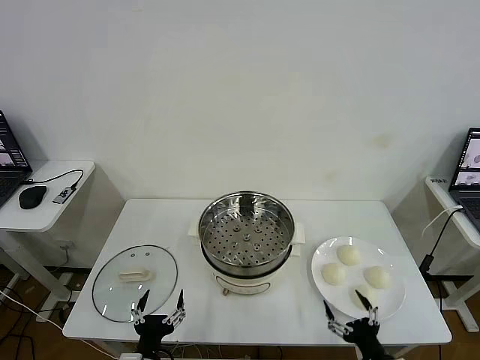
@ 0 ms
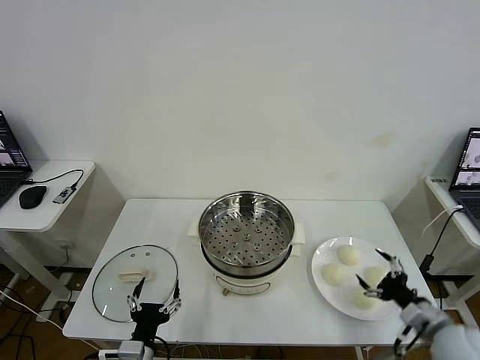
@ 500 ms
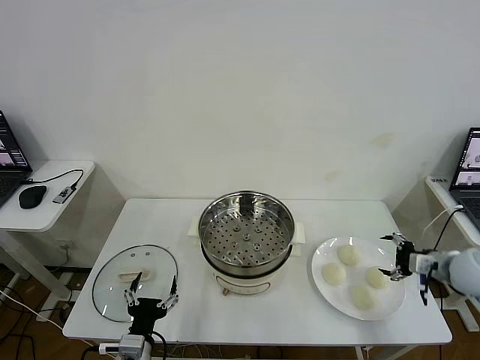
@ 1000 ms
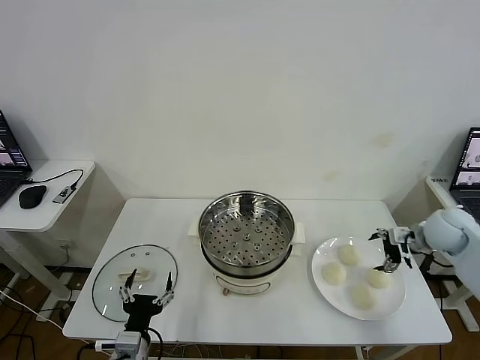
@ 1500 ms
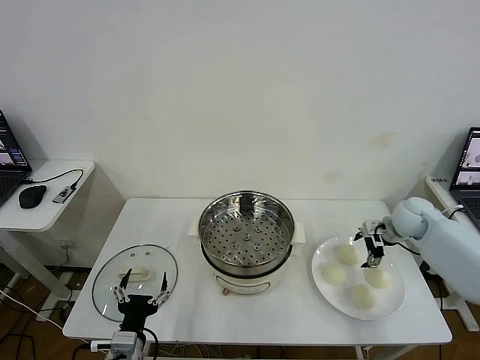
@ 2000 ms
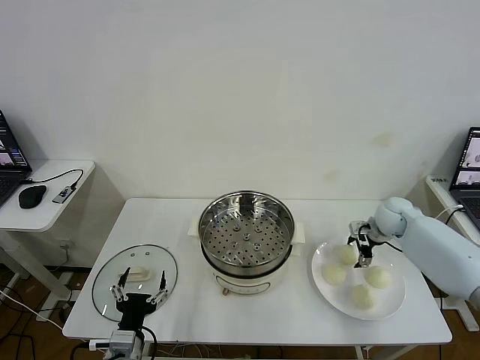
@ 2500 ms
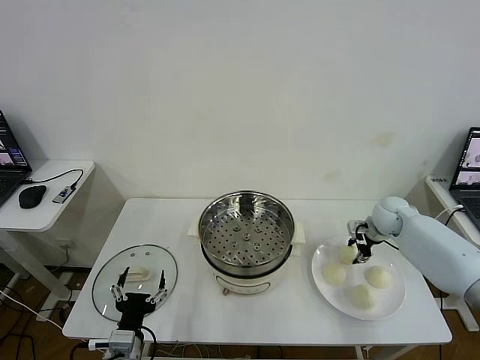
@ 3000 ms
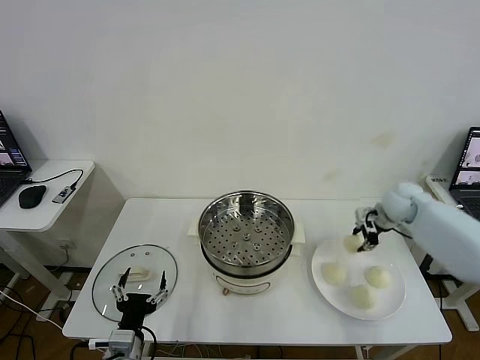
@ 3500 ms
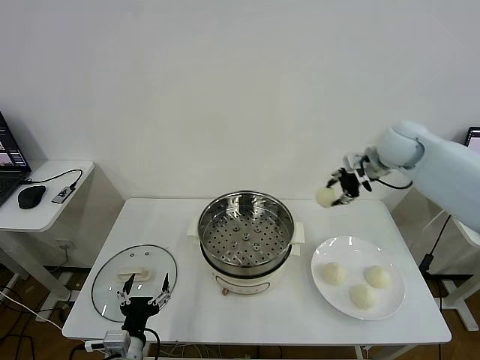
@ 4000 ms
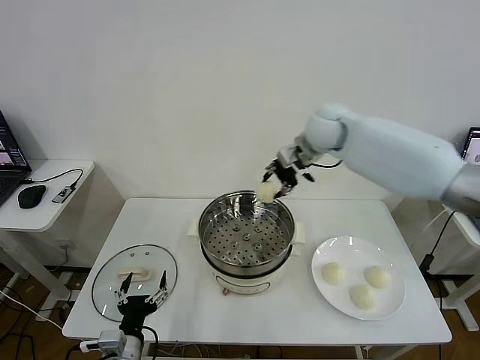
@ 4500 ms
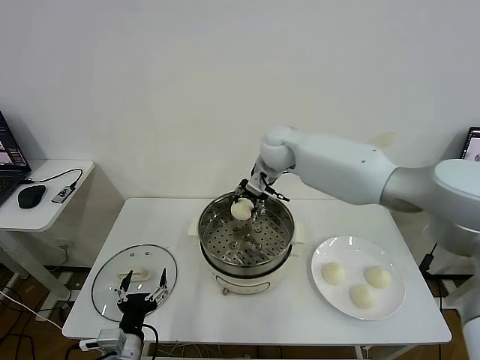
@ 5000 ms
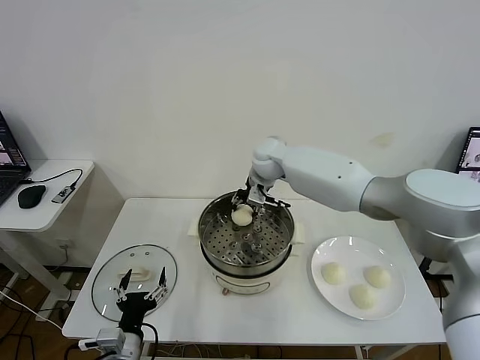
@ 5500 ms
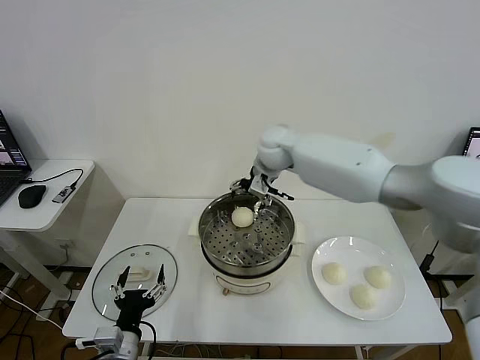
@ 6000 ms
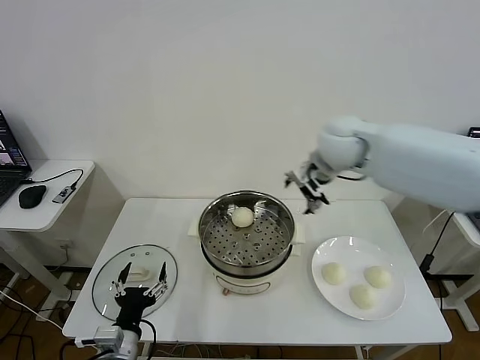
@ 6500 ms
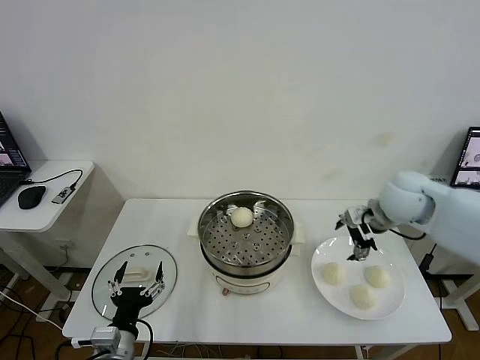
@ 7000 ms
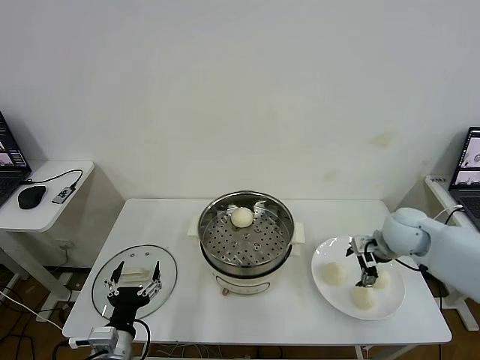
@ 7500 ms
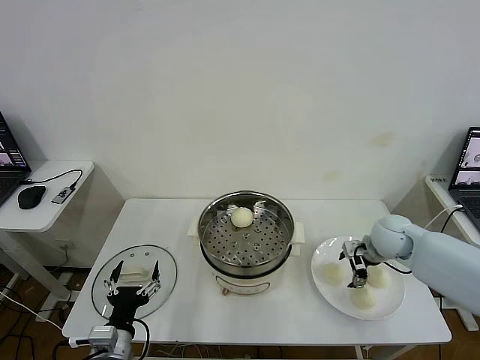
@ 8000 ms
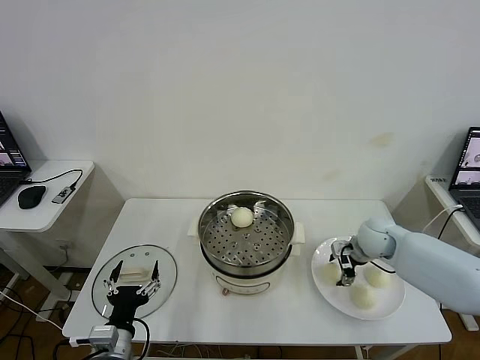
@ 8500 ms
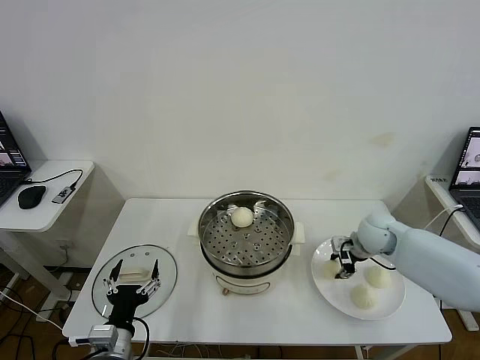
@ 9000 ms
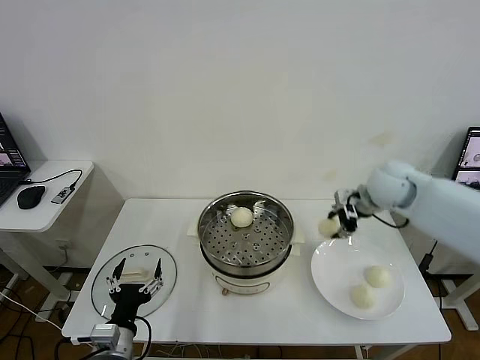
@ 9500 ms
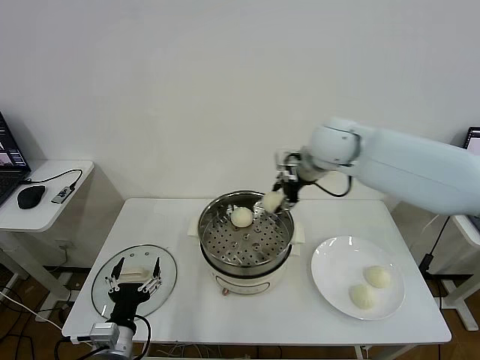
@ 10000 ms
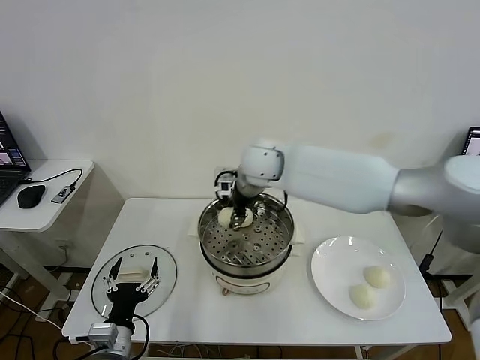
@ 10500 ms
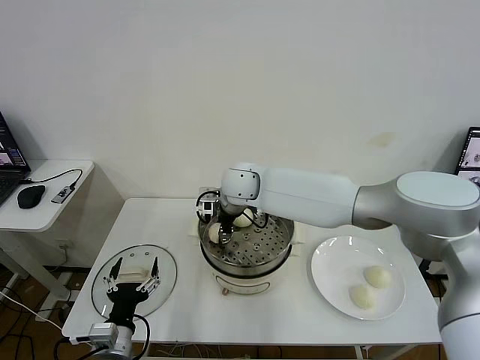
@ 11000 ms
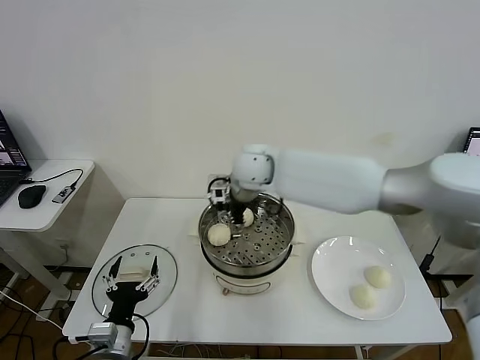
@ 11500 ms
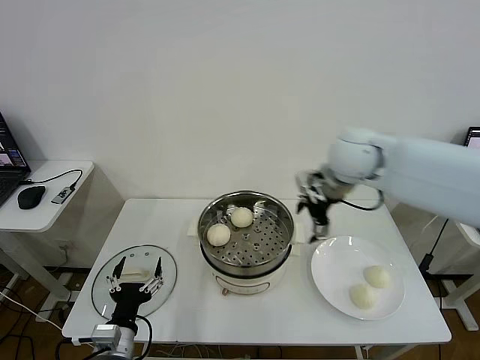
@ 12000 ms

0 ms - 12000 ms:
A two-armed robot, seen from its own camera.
Task of the whole recording: take steamed baozi put them in steamer then cover it.
Step, 0 ms - 3000 ms: Grasp the baozi in the plate with right gripper.
Step, 3500 ms - 5500 ms: Place the baozi on the steamer with right gripper.
Step, 6000 ms - 8500 ms: Grasp the baozi in the plate with right gripper.
Step, 9000 ms - 11500 ms: Place the baozi on the steamer with right gripper.
2000 ms - 4000 ms: The right gripper heads upward and to the left, covering about 25 cm, and closes its fingers.
4000 ms - 6000 ms: The right gripper is displaced to the left by some 20 cm, and opens up.
6000 ms - 8000 ms: The right gripper moves to the right, downward and backward, some 35 cm.
8000 ms - 10000 ms: The right gripper travels upward and to the left by about 30 cm, and closes up.
10000 ms - 12000 ms: The right gripper goes approximately 10 cm to the right, and opens.

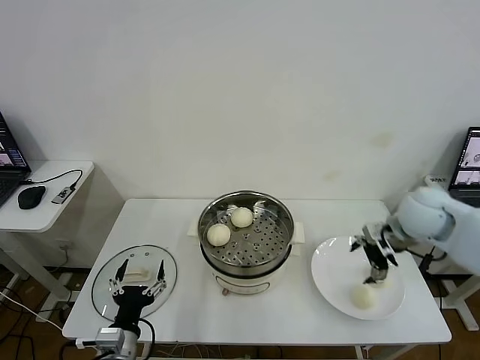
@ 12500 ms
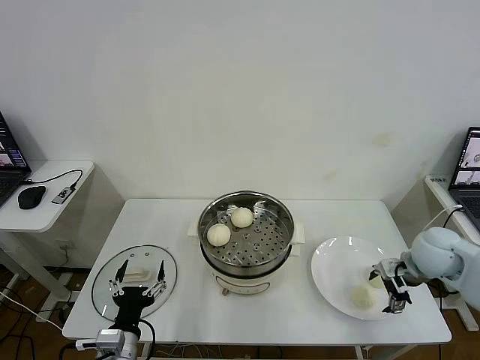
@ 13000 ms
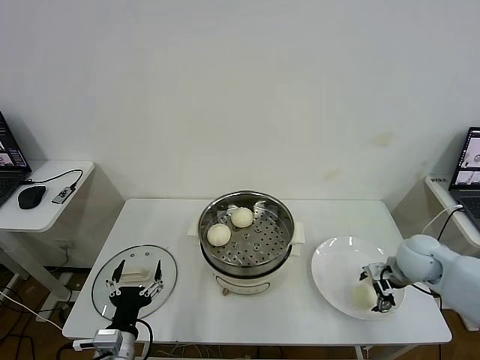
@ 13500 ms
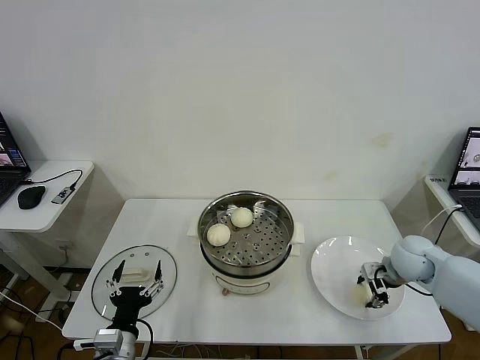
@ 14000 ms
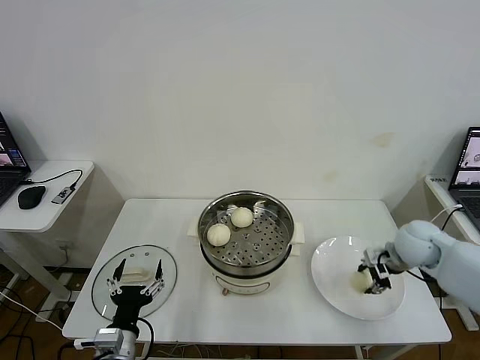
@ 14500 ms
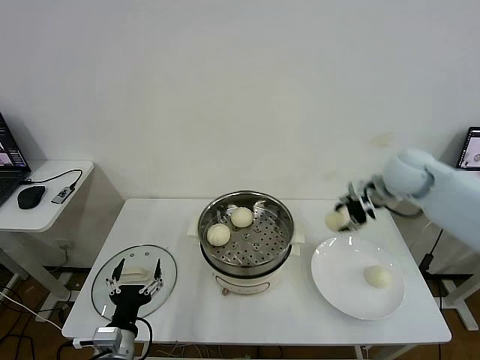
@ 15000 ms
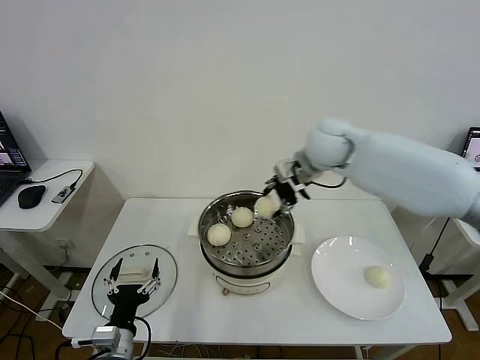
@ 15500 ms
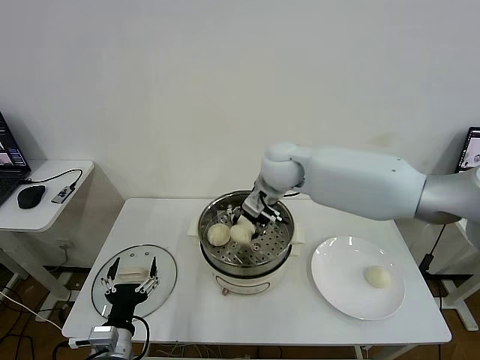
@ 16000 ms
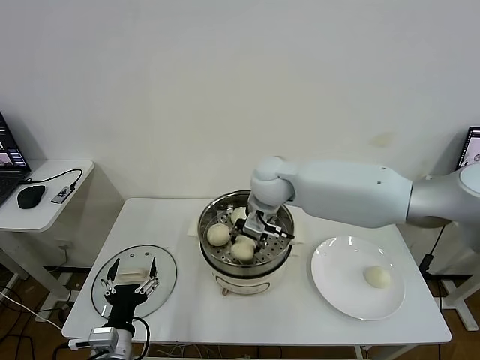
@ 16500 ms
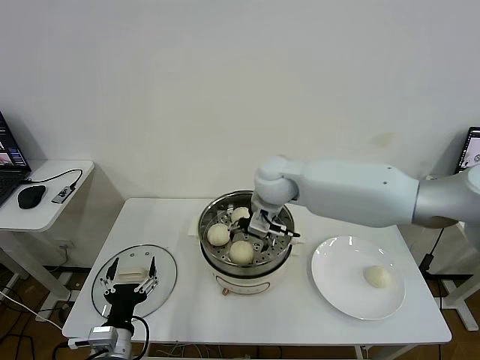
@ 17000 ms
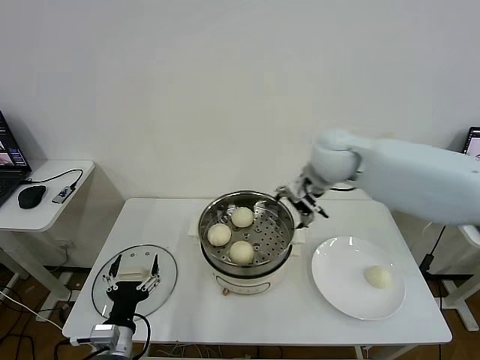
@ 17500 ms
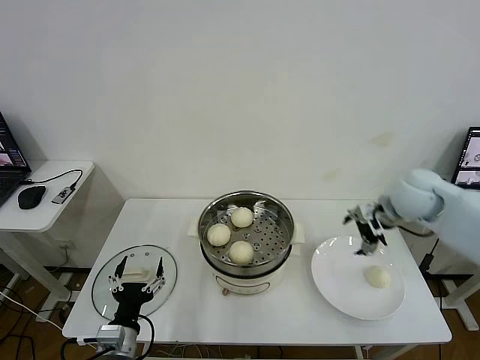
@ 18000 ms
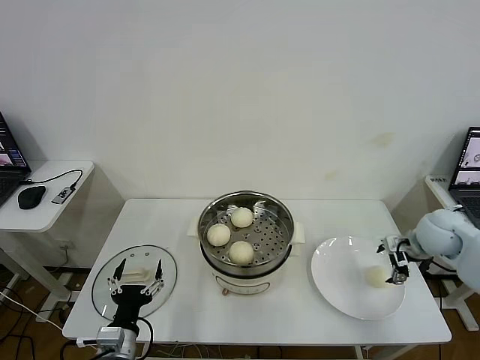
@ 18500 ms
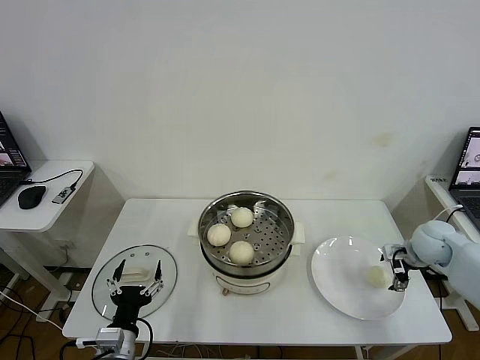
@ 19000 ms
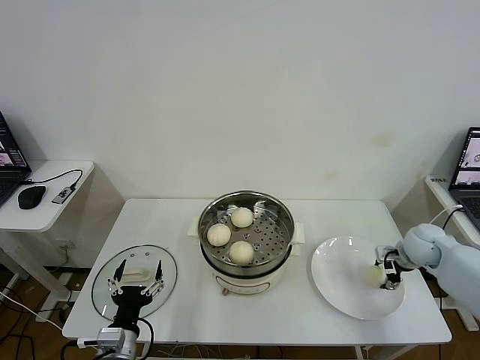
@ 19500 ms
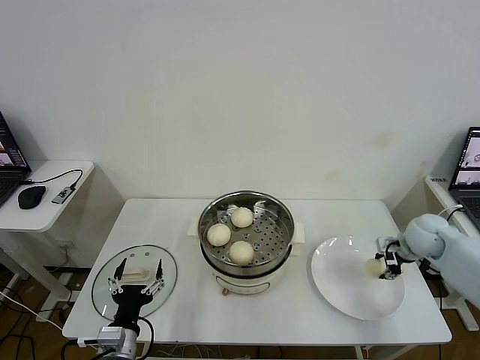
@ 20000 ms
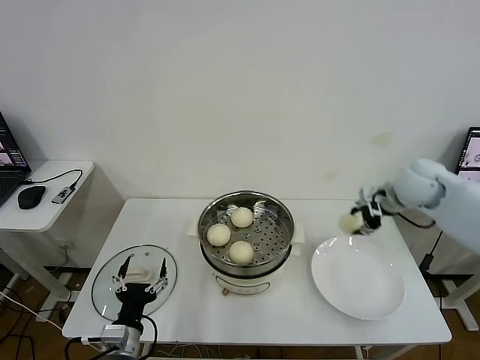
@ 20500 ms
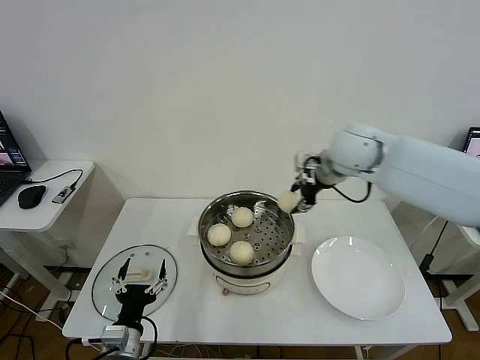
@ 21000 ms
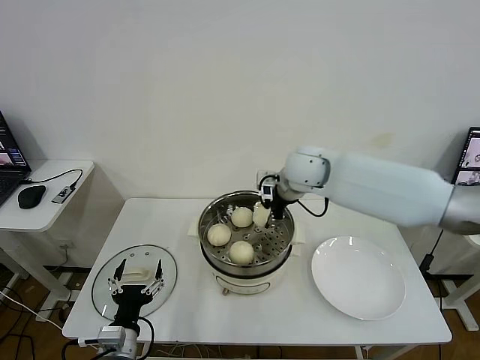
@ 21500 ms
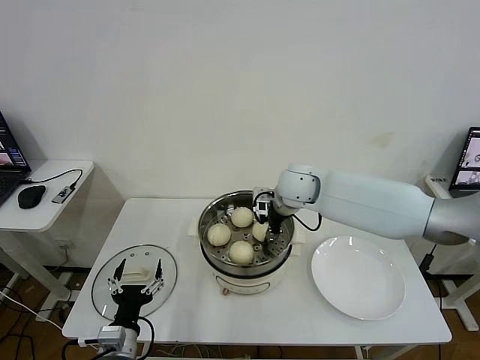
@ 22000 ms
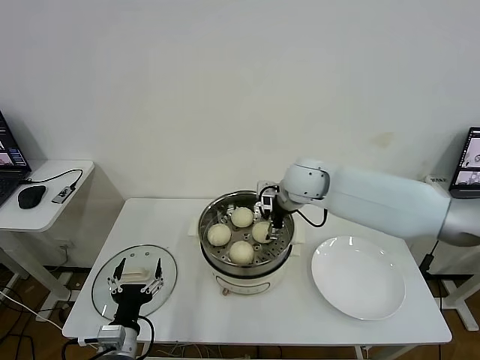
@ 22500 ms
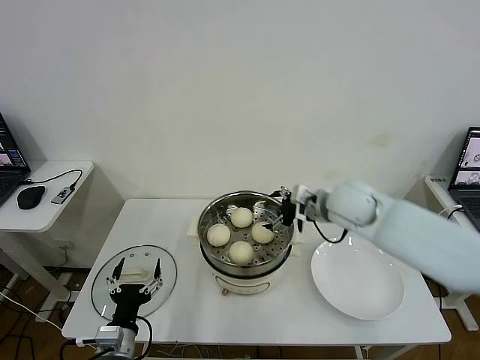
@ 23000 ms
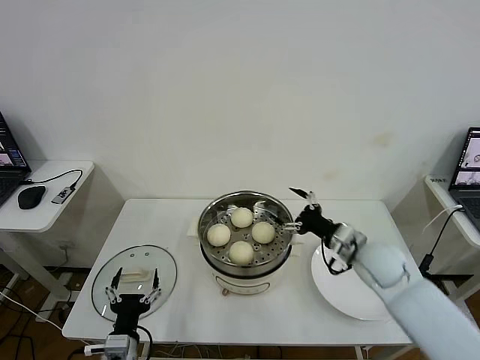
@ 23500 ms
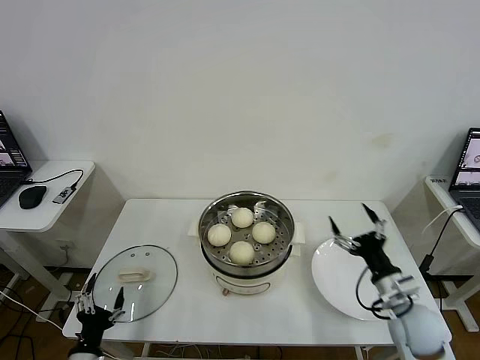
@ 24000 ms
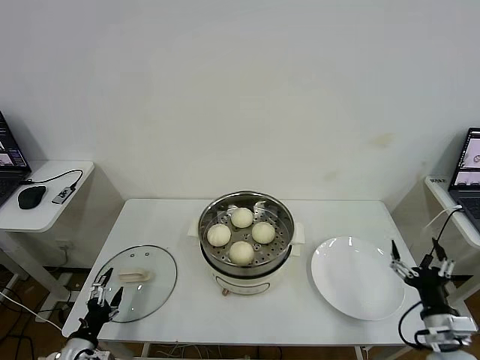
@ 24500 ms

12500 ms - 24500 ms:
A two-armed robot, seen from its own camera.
Task of the whole recording: take steamed baozi put them in steamer then cover it.
Step, 12500 ms - 14000 ms: Grasp the baozi in the plate with right gripper.
Step, 14500 ms - 17000 ms: Place the baozi on the steamer with right gripper.
Step, 17500 ms - 19500 ms: Grasp the baozi in the plate with right gripper.
Step, 20000 ms - 22500 ms: Place the baozi on the steamer with right gripper.
12500 ms - 14500 ms: The right gripper is displaced downward by roughly 5 cm, and closes.
14500 ms - 16500 ms: The right gripper moves to the left, approximately 35 cm.
16500 ms - 18500 ms: The right gripper goes about 40 cm to the right, and opens.
18500 ms - 20500 ms: The right gripper goes some 15 cm upward, to the left and forward, and closes its fingers.
20500 ms - 22500 ms: The right gripper goes some 20 cm to the left, and opens.
22500 ms - 24500 ms: The left gripper shifts approximately 15 cm to the left and downward, while the right gripper is displaced backward, to the right and downward by some 50 cm.

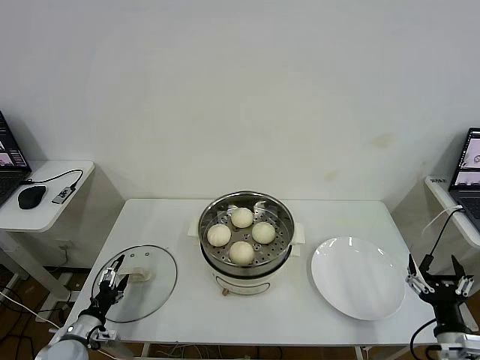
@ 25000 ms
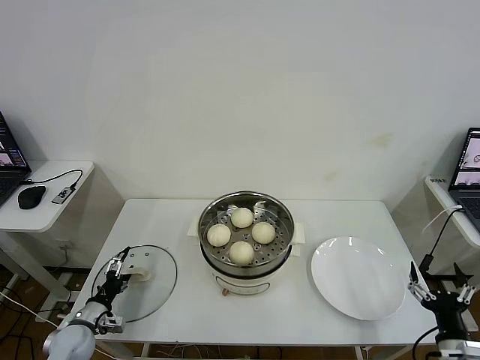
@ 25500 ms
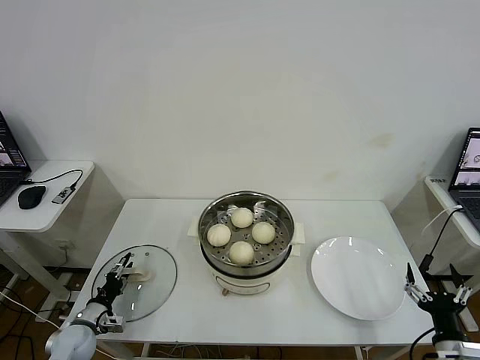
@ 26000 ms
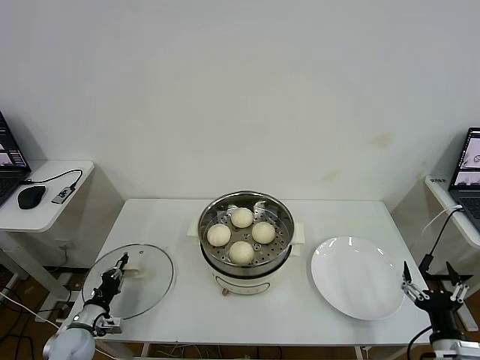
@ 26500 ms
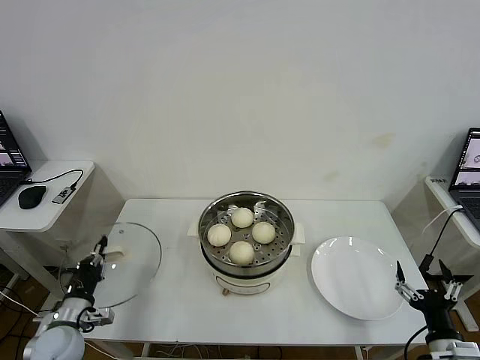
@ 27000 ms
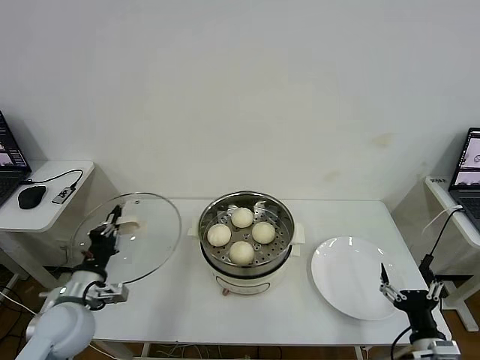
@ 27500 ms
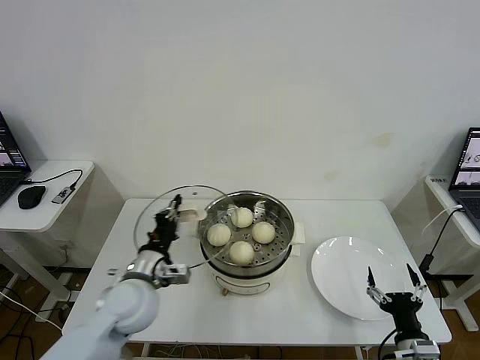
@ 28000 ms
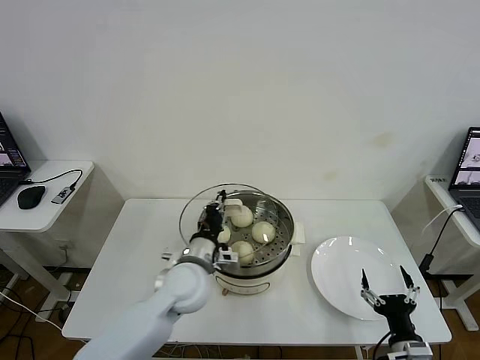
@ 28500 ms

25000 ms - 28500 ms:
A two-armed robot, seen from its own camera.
Task of the whole recording: take steamed baozi put them in steamer then cover it.
25000 ms - 27000 ms: The left gripper moves upward, roughly 5 cm, and closes up.
27000 ms - 28500 ms: The left gripper shifts some 30 cm to the right and upward. Meanwhile the right gripper moves to the left, approximately 5 cm.
